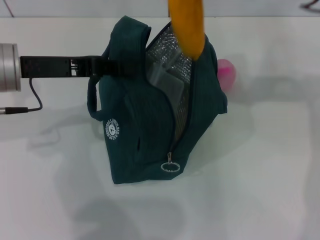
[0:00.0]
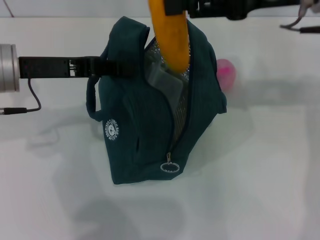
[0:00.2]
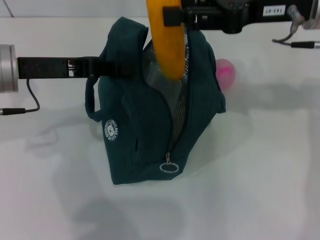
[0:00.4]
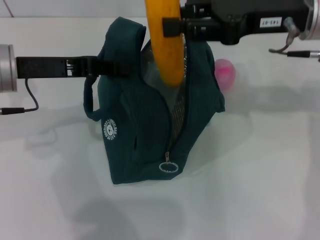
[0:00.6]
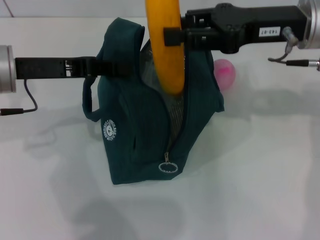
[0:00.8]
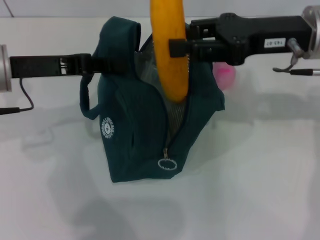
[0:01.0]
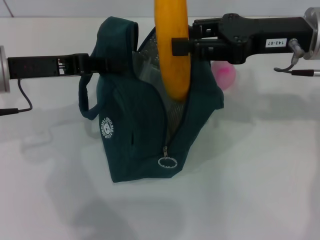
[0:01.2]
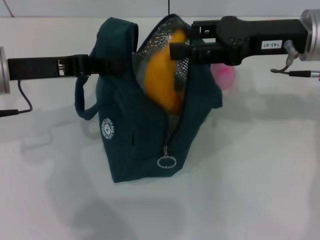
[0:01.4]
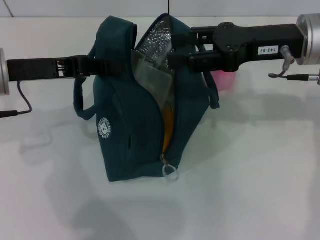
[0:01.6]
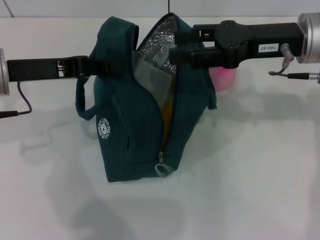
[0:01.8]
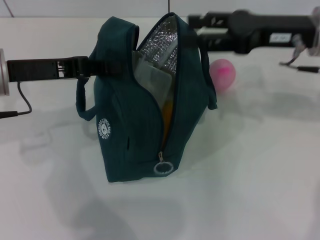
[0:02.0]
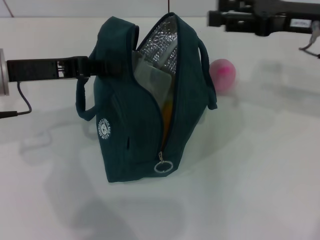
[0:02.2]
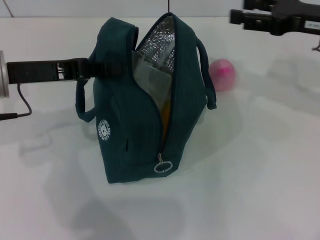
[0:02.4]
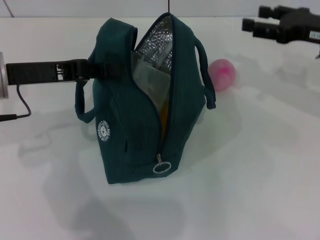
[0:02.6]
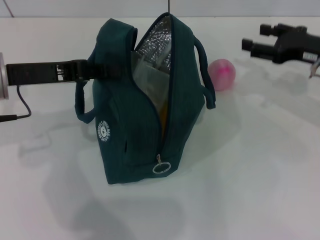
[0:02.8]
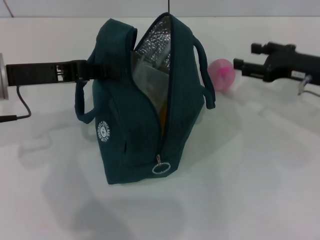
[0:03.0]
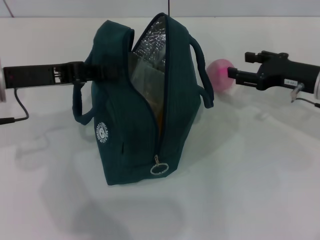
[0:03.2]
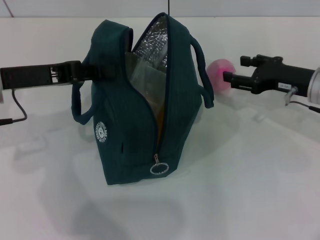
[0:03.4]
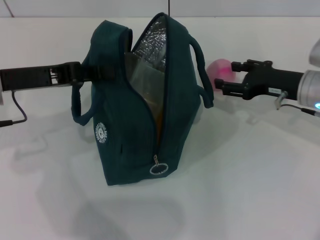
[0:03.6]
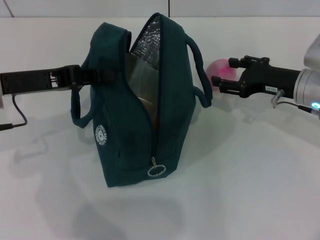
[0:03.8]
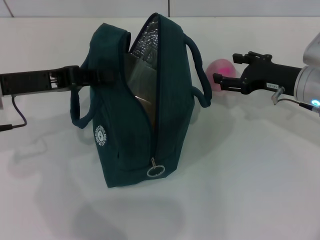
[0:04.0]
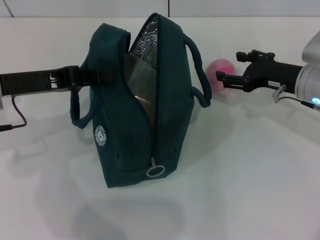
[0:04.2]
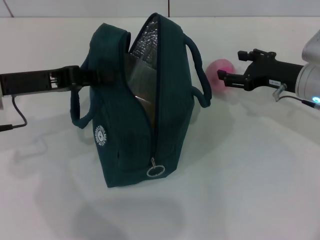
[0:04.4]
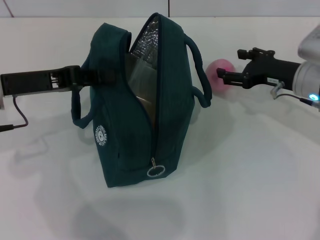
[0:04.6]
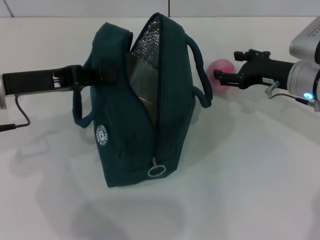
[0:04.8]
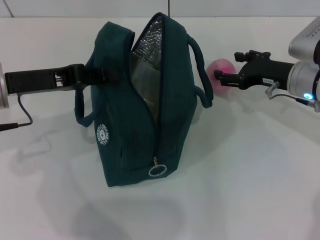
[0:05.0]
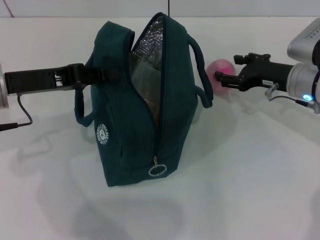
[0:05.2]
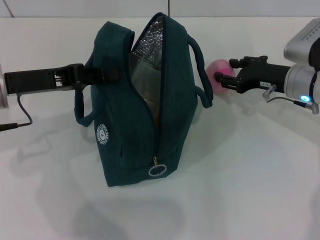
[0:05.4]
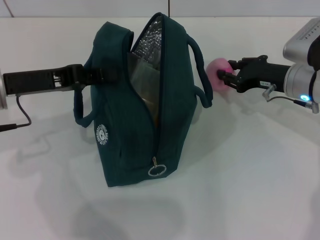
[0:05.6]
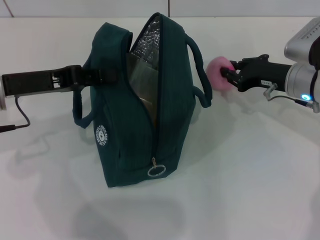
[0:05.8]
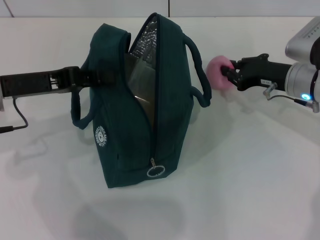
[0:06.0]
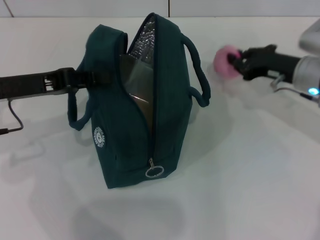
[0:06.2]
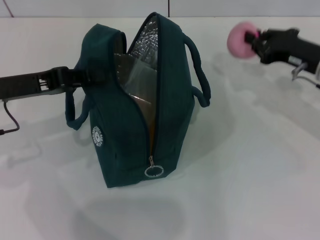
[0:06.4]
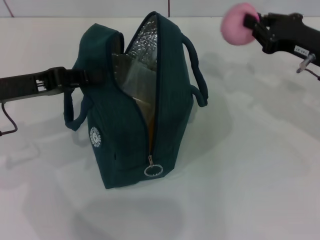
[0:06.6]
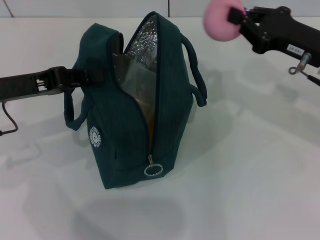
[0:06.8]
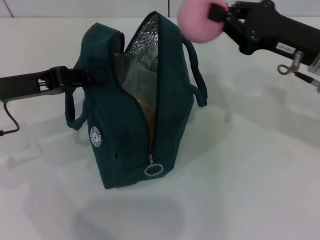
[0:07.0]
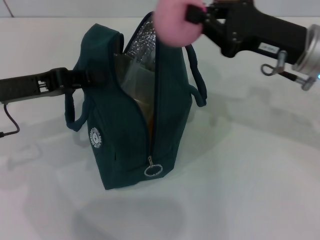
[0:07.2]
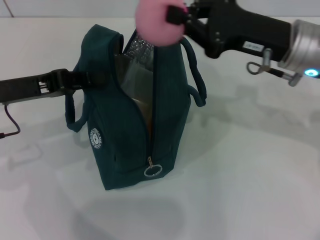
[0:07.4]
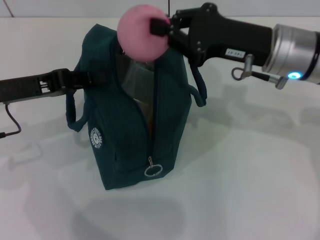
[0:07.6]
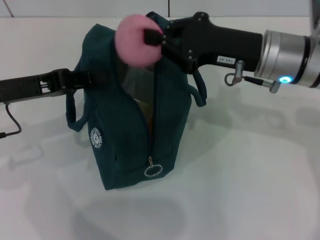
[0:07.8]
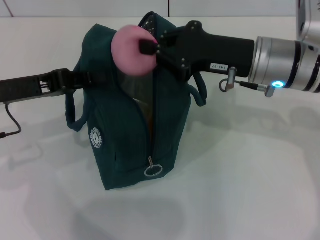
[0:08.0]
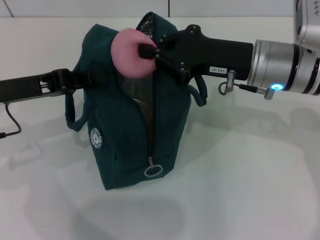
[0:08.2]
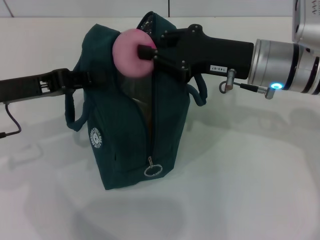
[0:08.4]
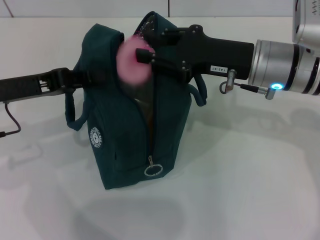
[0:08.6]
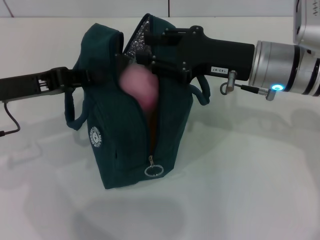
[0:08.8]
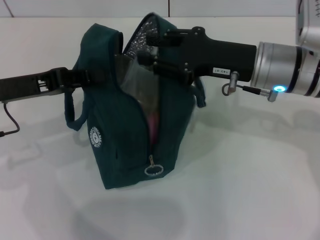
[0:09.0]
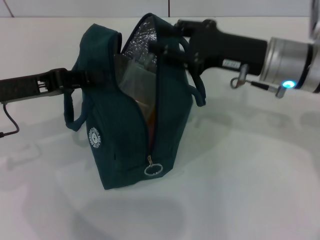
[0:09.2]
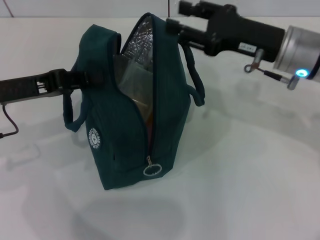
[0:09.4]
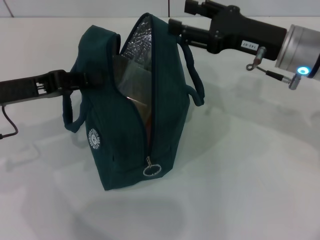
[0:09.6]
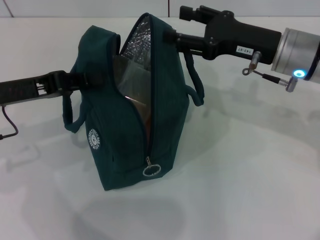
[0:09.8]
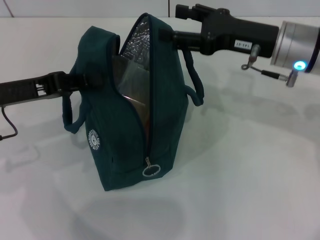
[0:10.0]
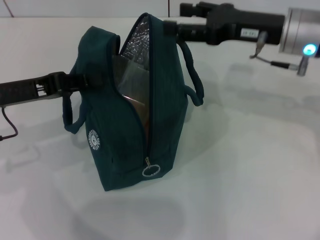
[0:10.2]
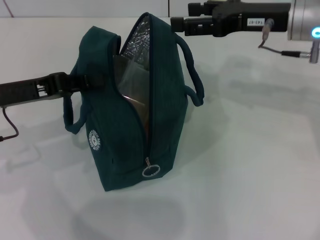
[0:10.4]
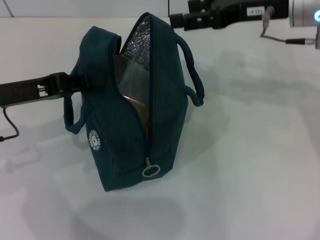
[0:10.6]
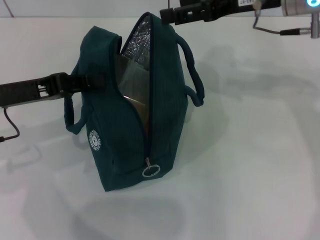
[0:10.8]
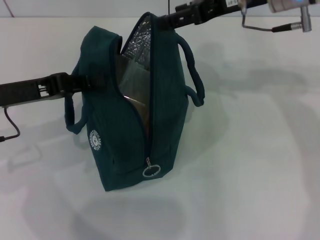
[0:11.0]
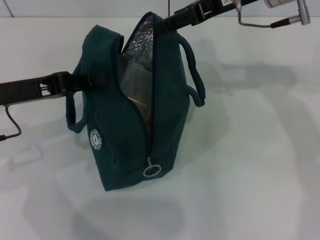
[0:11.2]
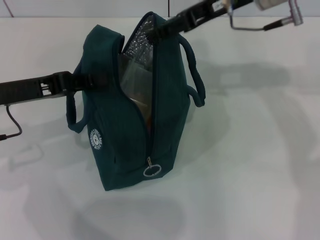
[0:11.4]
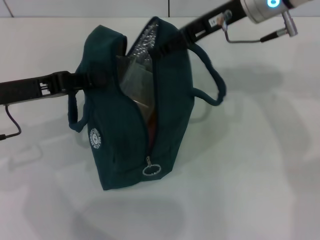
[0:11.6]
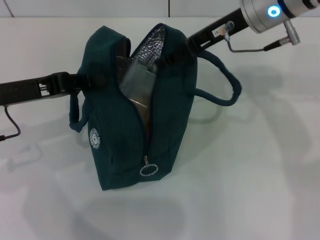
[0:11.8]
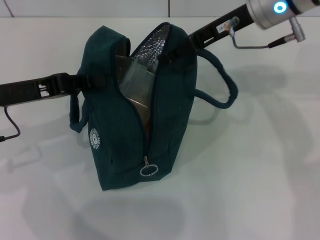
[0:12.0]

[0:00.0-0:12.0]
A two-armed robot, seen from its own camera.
Step, 0:02.0 to 0:05.8: Grab the peach with your right hand.
0:00.0 to 0:01.6: The right gripper heads downward, covering about 10 cm.
0:01.6 to 0:03.0: The right gripper moves downward and to the right, approximately 10 cm.
0:03.0 to 0:04.4: The grippers make only small movements.
0:04.4 to 0:06.0: The right gripper closes its fingers.
0:06.0 to 0:07.6: The right gripper travels upward and to the left by approximately 10 cm.
0:07.6 to 0:09.0: The right gripper opens up.
0:09.0 to 0:10.4: The right gripper is displaced upward by approximately 5 cm, and opens its fingers.
0:10.4 to 0:12.0: The right gripper is displaced to the left by some 5 cm.

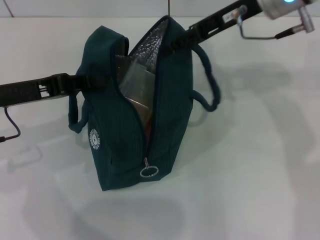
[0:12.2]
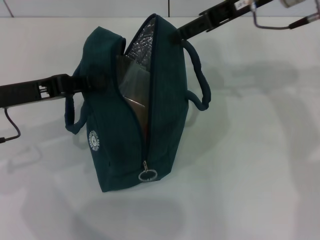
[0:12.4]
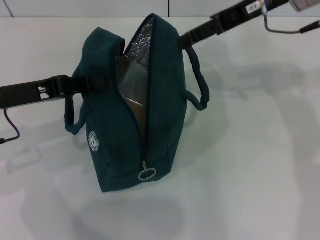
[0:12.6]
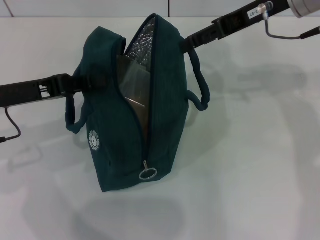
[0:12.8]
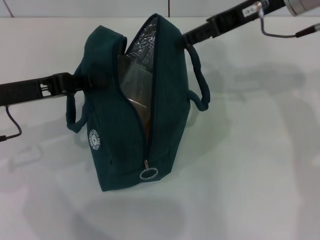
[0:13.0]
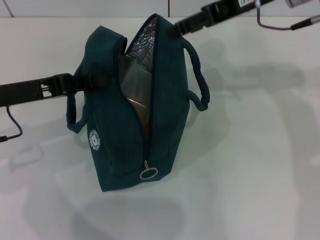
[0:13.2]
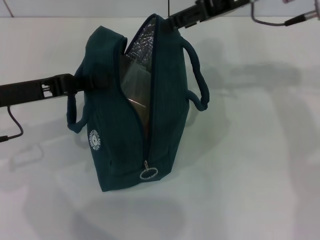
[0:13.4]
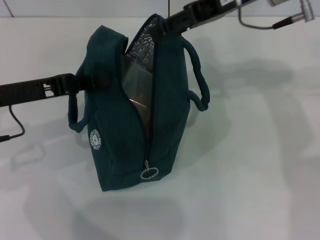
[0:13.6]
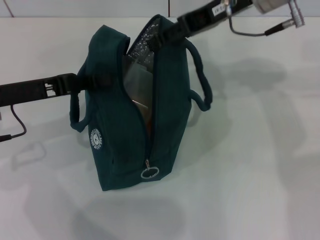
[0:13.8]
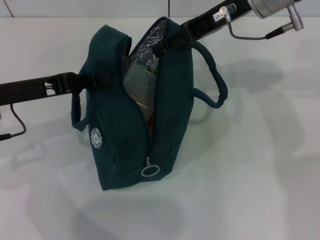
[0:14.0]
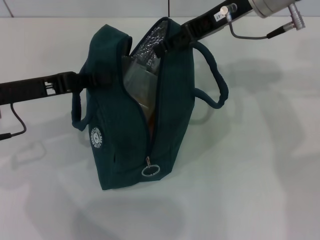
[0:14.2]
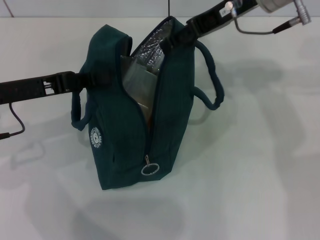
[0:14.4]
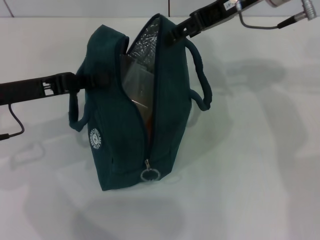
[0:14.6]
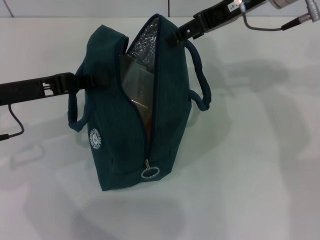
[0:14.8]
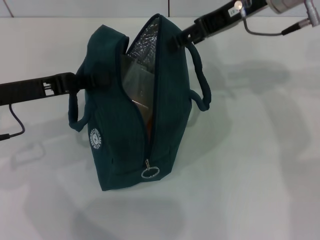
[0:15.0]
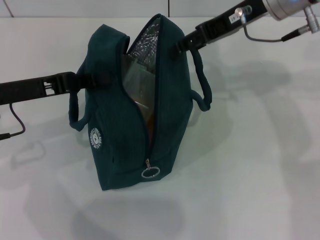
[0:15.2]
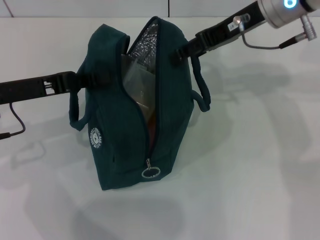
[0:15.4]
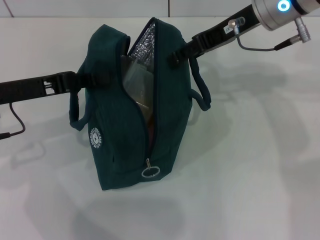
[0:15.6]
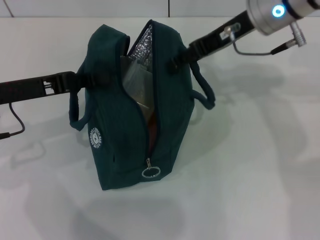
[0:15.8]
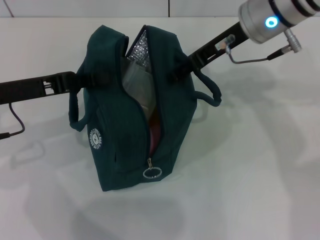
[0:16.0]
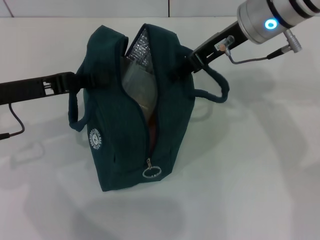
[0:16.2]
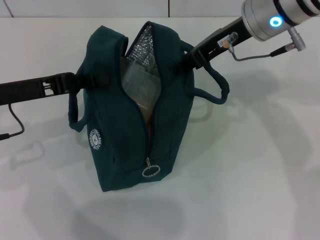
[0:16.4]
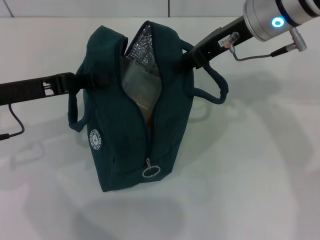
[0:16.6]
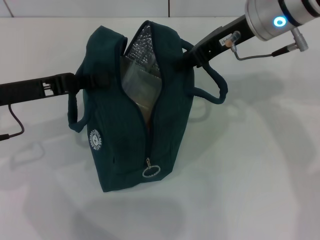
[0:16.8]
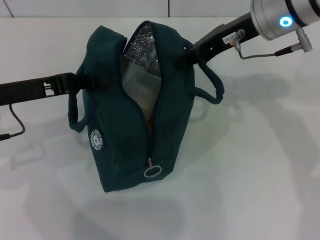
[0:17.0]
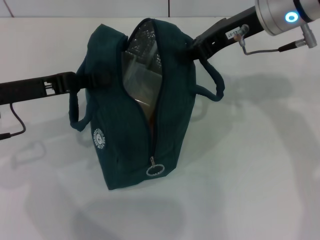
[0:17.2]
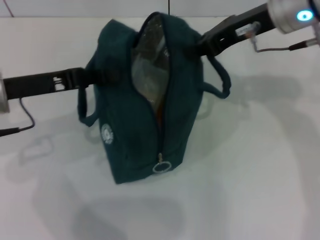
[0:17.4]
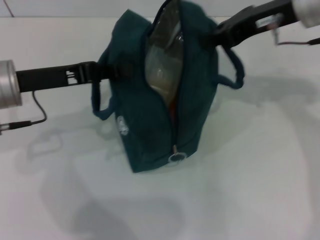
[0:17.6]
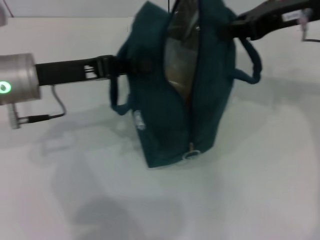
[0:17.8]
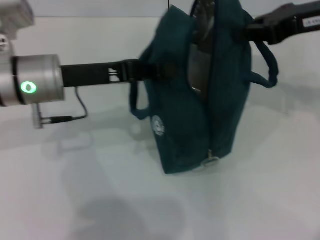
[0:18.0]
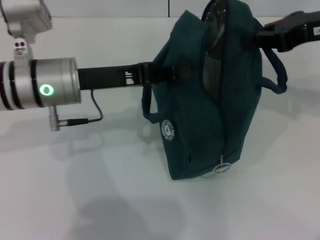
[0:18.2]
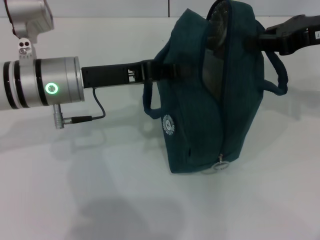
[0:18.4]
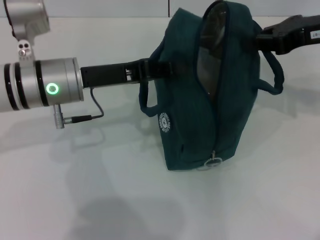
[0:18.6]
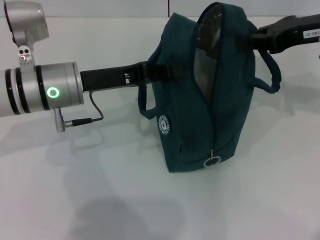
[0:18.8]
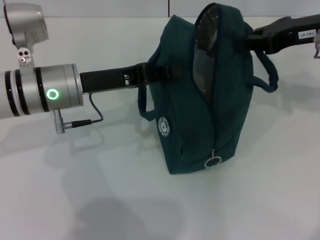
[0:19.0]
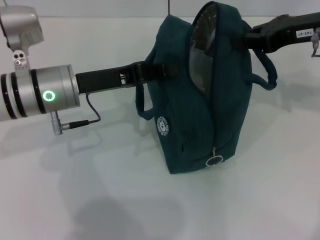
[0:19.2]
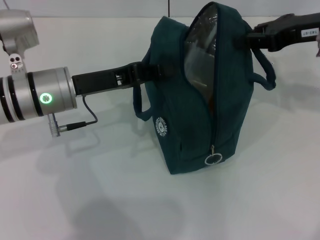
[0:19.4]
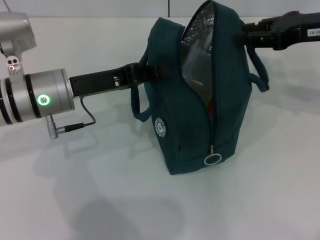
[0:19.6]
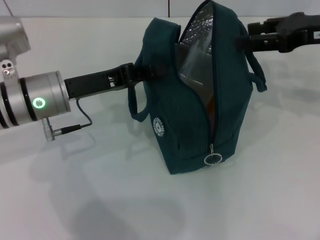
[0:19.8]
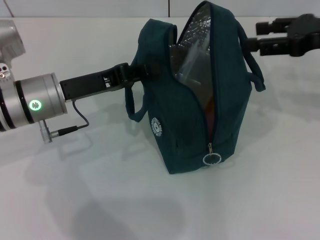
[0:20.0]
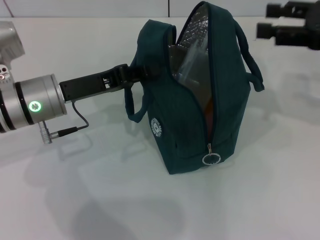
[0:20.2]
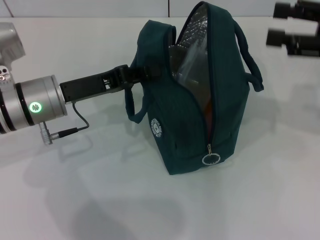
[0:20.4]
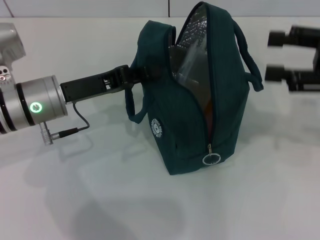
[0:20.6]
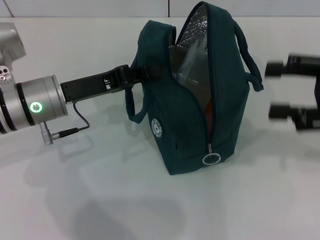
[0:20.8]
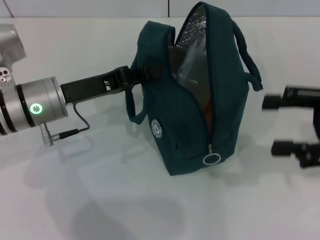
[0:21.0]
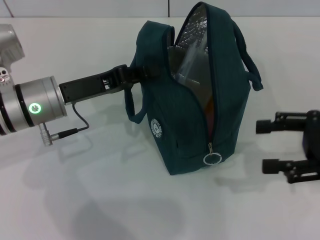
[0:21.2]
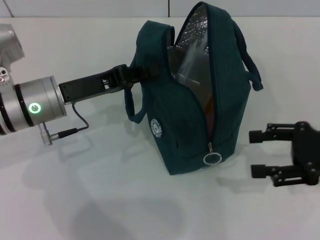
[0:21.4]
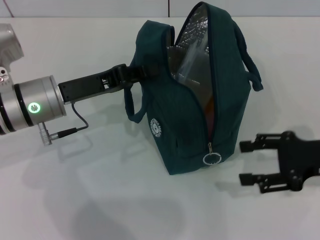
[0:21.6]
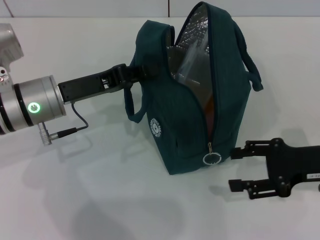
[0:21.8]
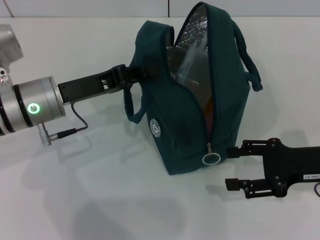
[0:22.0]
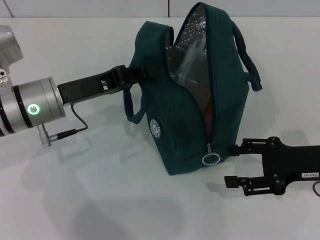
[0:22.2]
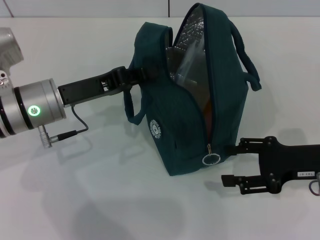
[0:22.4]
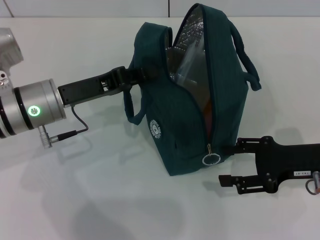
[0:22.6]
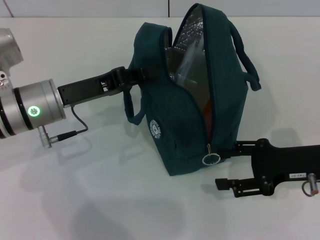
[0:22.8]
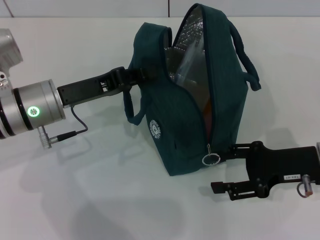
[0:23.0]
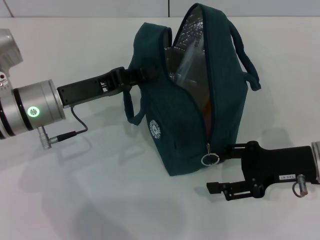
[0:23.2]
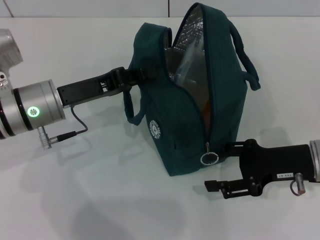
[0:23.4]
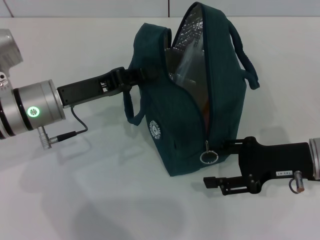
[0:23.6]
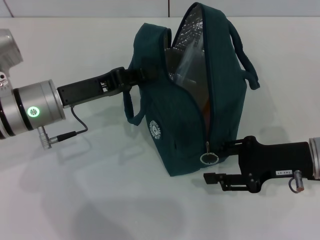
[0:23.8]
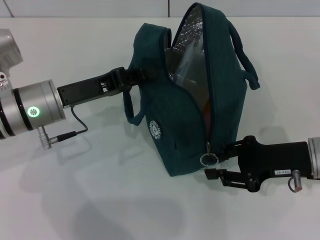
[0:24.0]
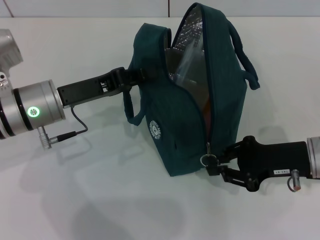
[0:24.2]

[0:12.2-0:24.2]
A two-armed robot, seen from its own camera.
Step, 0:12.2 to 0:19.8: Hold the lunch bag with your right hand.
0:12.2 to 0:15.2: The grippers make only small movements.
0:15.2 to 0:16.6: The right gripper closes up.
0:16.6 to 0:18.2: Both grippers travel together to the right, about 10 cm.
0:18.2 to 0:19.8: The right gripper opens up.
0:19.8 to 0:21.2: The right gripper moves backward and downward, approximately 15 cm, and opens up.
0:21.2 to 0:22.6: The right gripper travels downward by about 5 cm.
0:22.6 to 0:24.2: The right gripper closes.
